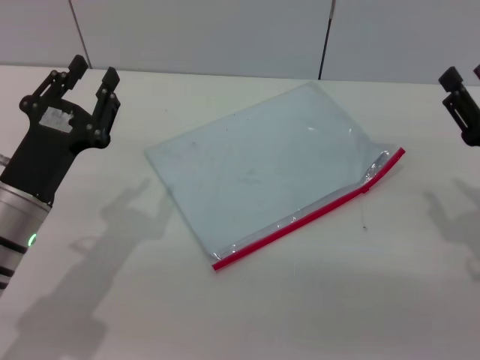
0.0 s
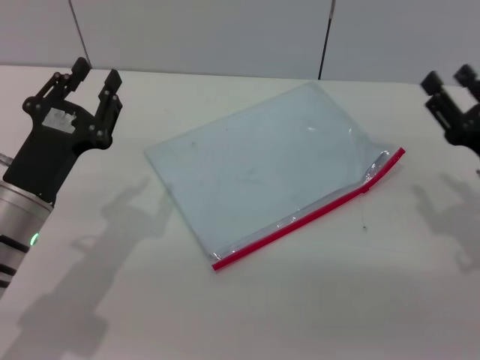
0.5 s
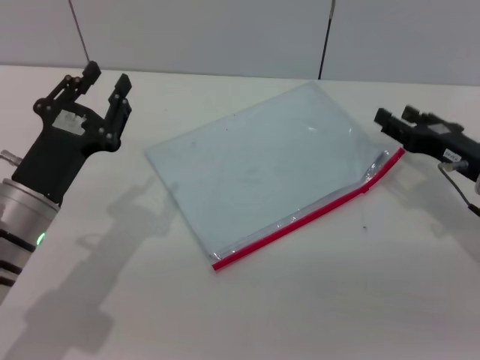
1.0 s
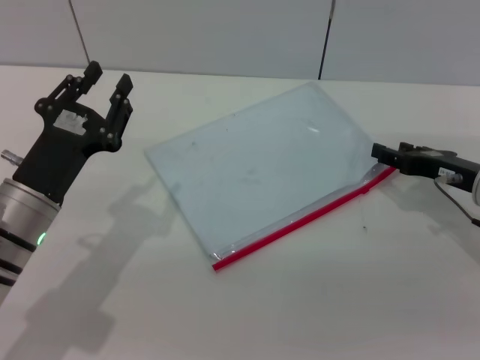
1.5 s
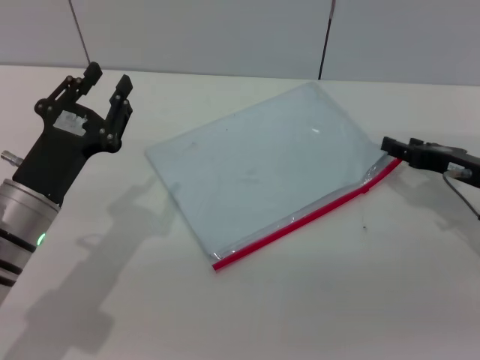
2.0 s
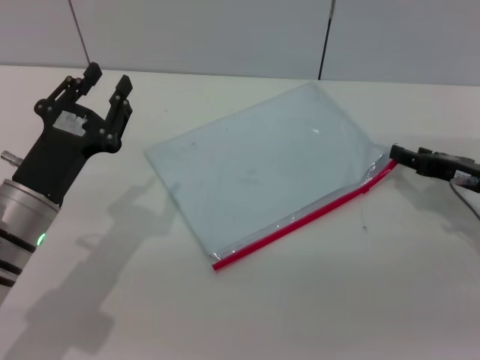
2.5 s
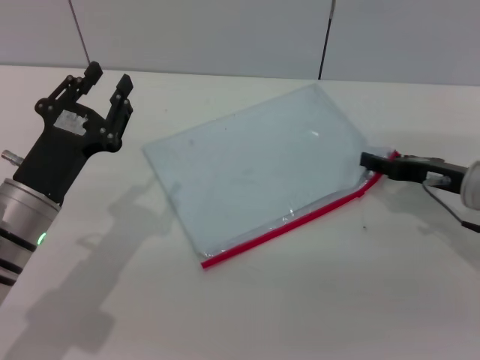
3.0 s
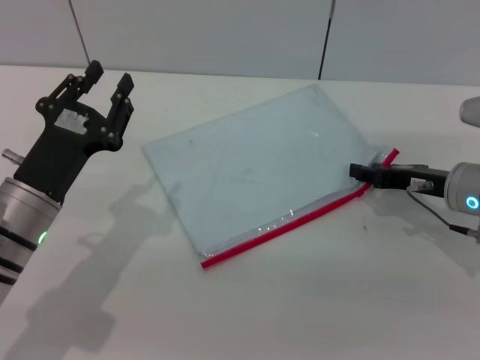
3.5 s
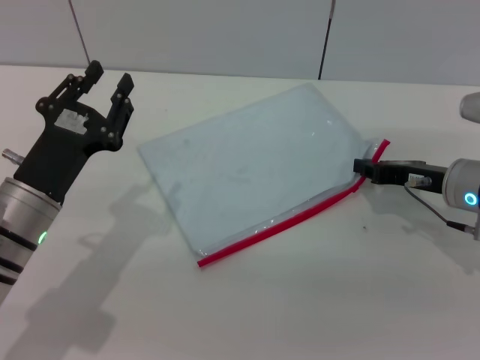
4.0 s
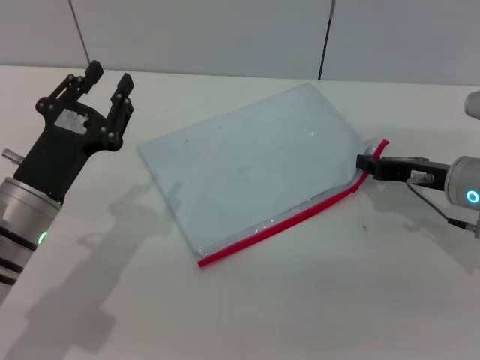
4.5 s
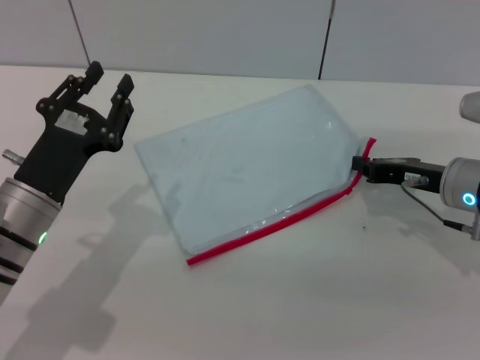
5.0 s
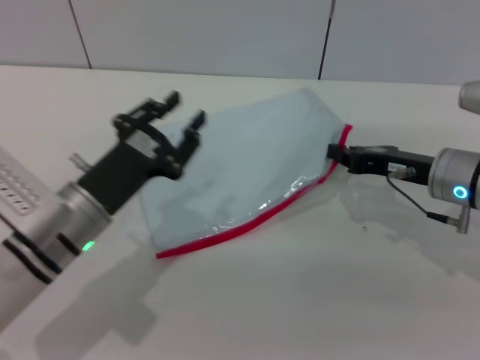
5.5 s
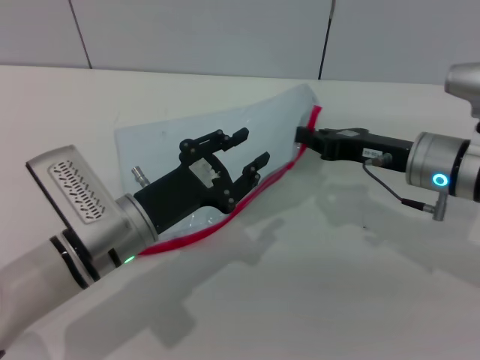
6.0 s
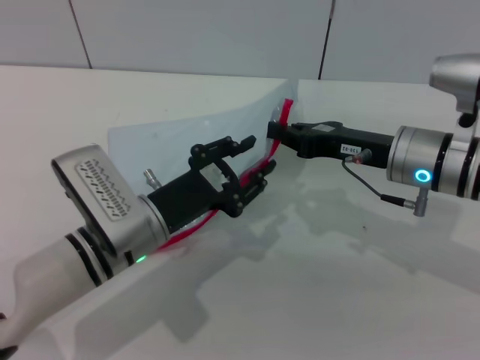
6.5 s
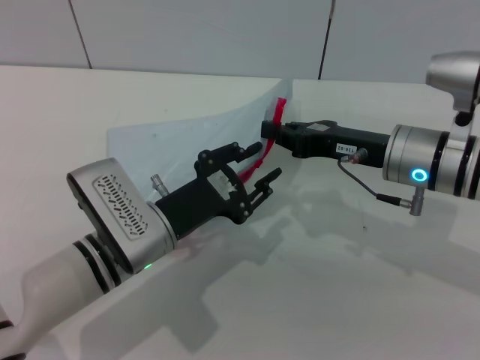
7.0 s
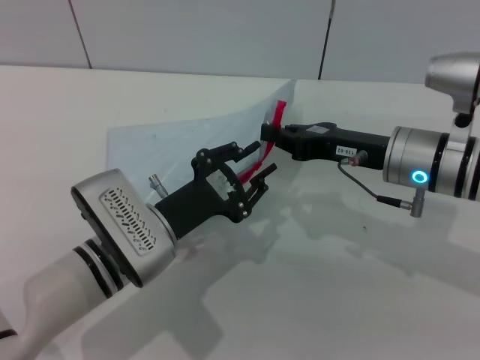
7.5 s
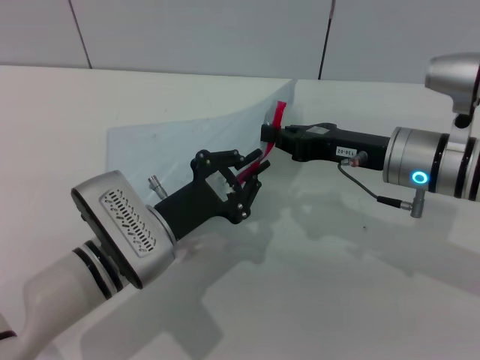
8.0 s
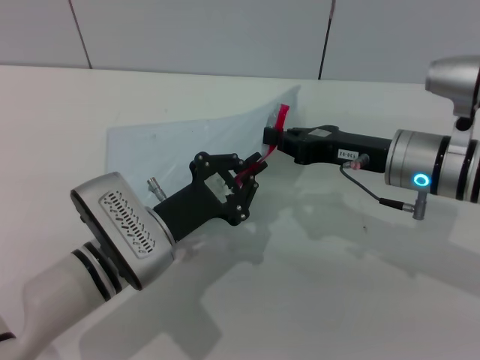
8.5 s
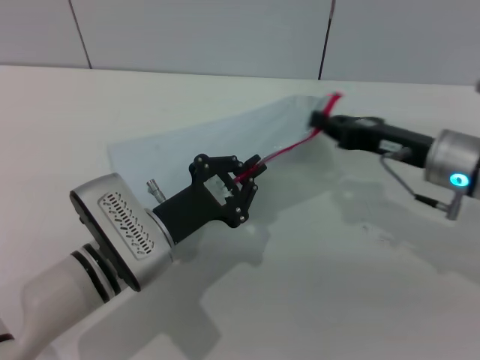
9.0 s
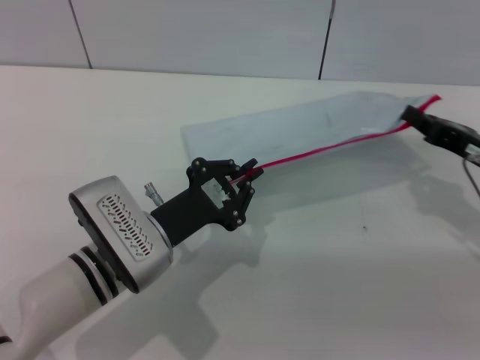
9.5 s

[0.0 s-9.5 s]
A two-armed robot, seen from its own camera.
Step, 0.0 to 5.5 s: Pick up the transparent plastic bag with the right gripper.
0.0 to 2.0 s: The right gripper moves forward, about 10 cm.
2.0 to 4.0 s: The right gripper closes.
5.5 to 7.5 s: The right gripper shifts roughly 5 cm to the left; the left gripper travels to the right by approximately 5 cm.
7.5 to 9.5 s: The left gripper closes. Meanwhile the right gripper shifts some 10 cm to the right.

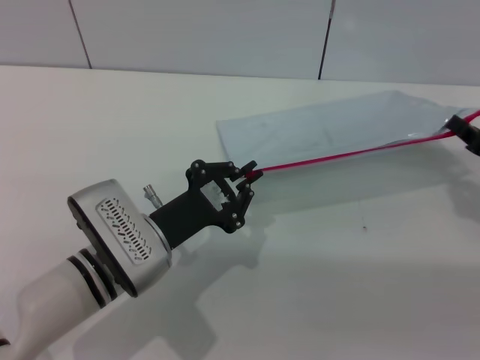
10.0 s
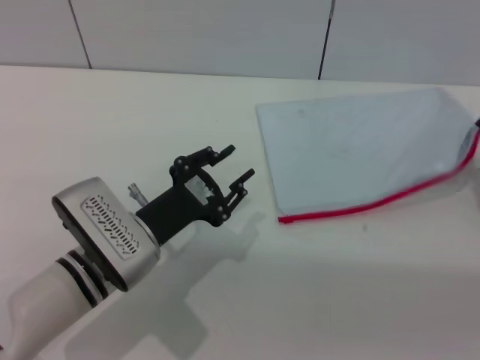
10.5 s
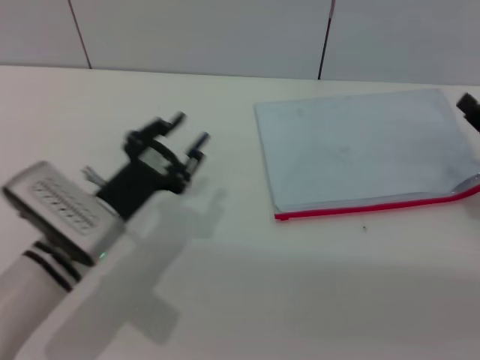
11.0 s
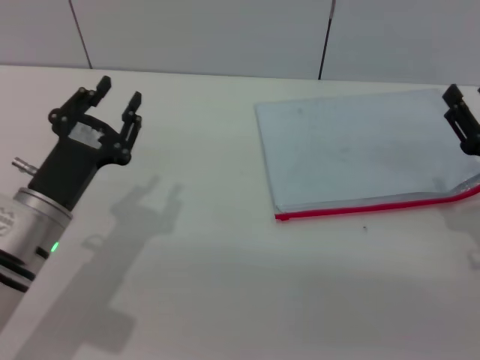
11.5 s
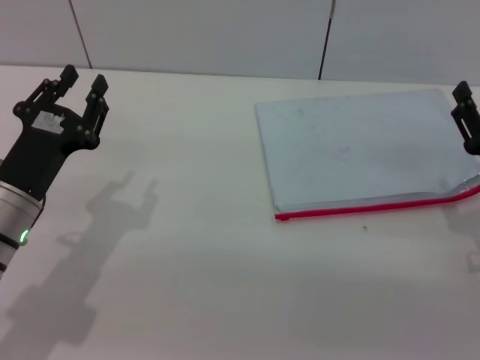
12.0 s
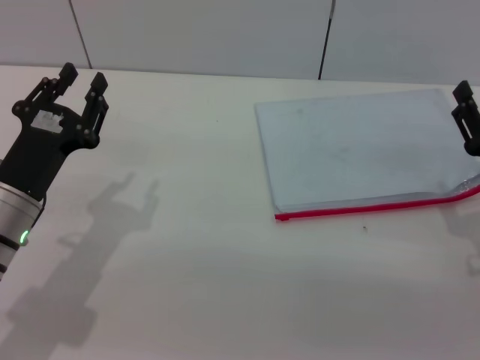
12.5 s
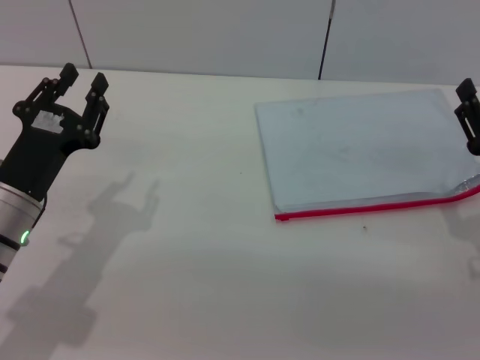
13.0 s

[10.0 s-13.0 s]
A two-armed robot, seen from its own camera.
10.0 to 11.5 s: The right gripper shifts by some 5 cm, and opens its fingers. The left gripper moves to the left, roughly 5 cm, and opens its fingers.
11.5 to 13.0 s: There are only small adjustments of the grippers.

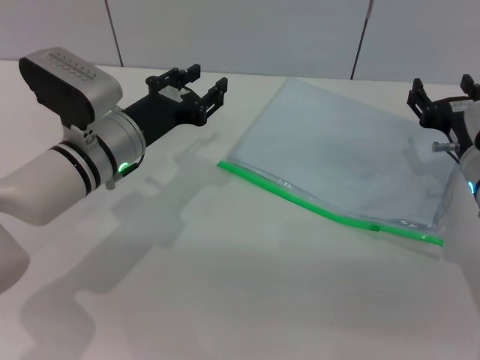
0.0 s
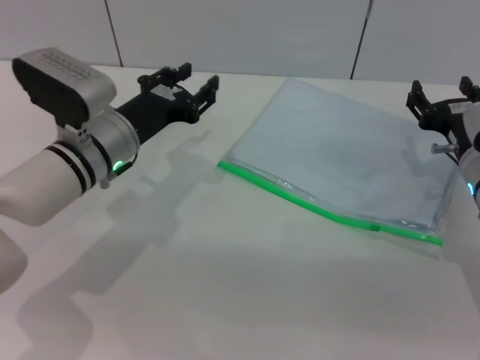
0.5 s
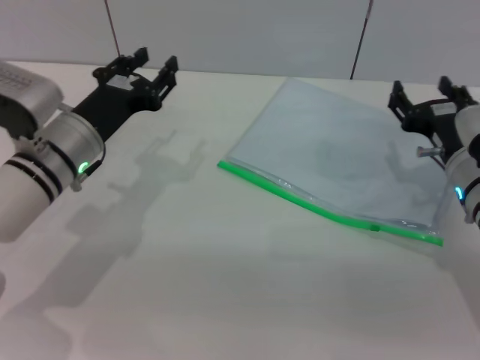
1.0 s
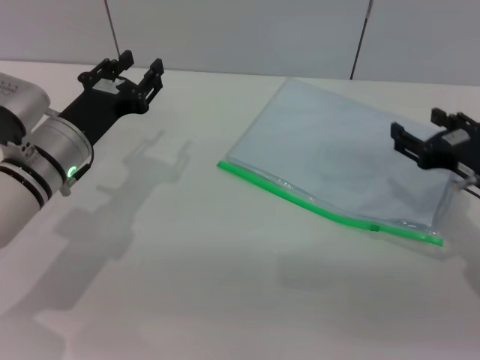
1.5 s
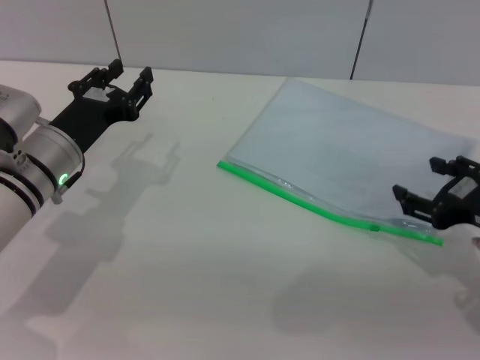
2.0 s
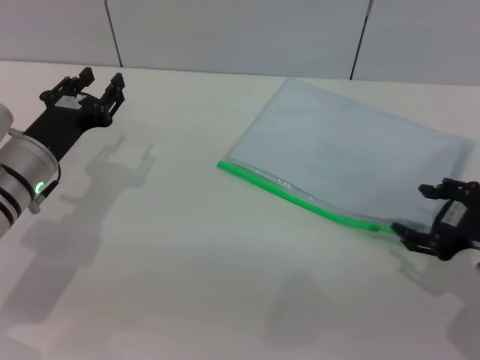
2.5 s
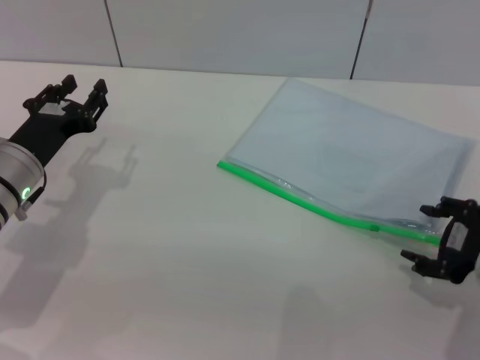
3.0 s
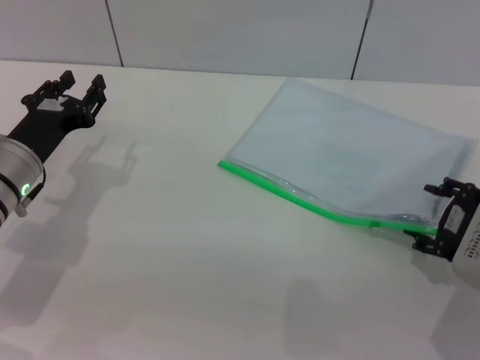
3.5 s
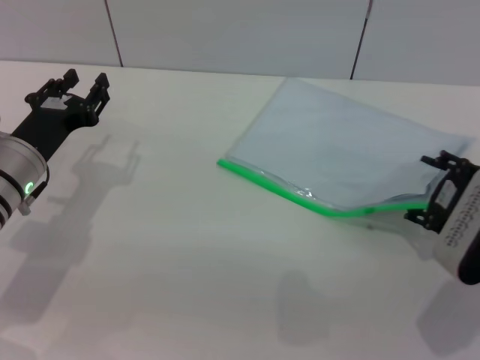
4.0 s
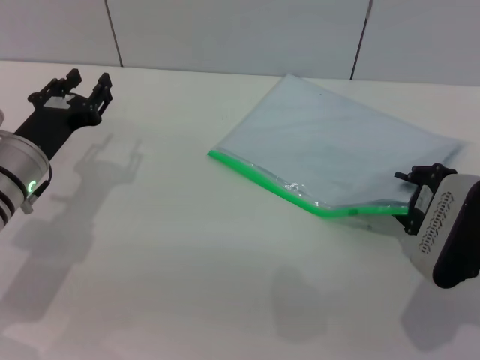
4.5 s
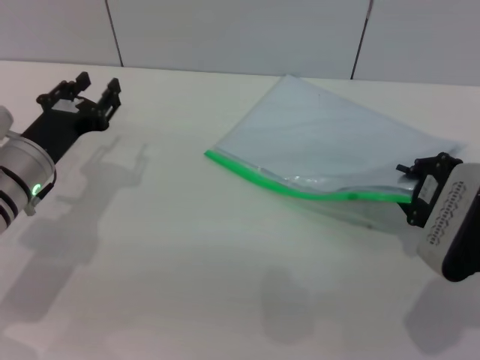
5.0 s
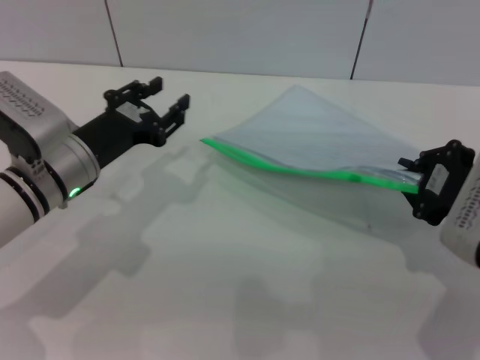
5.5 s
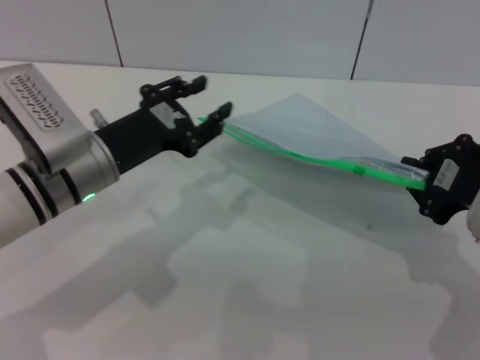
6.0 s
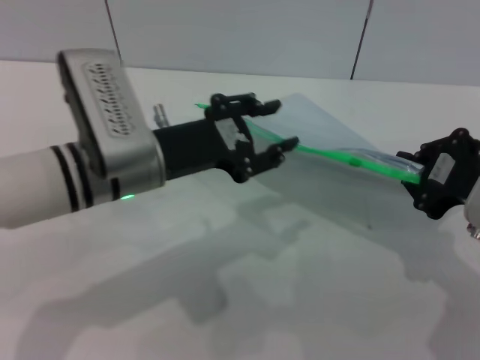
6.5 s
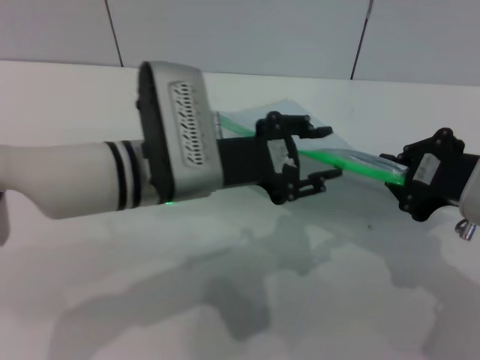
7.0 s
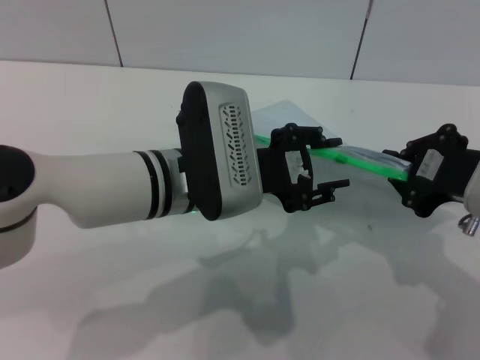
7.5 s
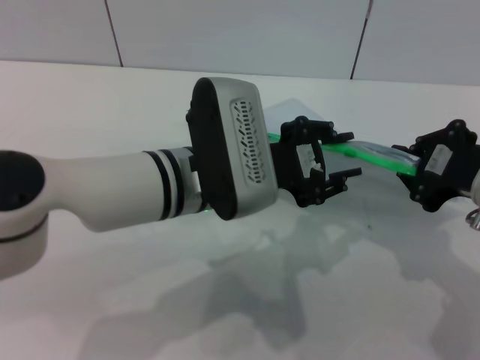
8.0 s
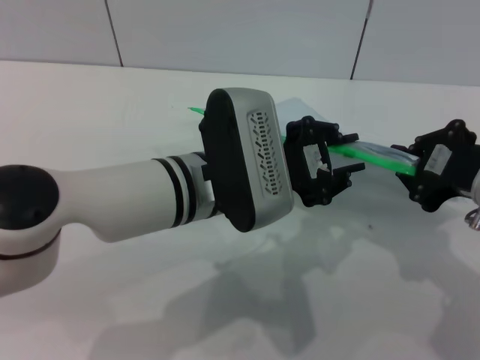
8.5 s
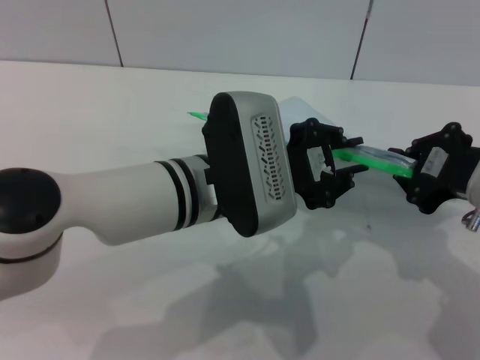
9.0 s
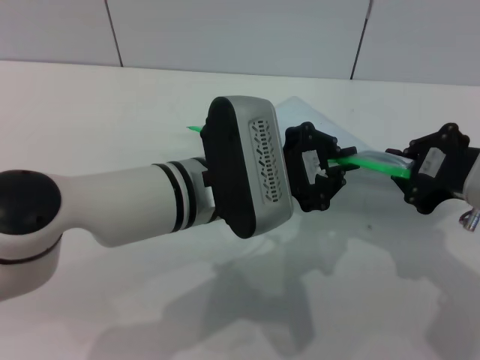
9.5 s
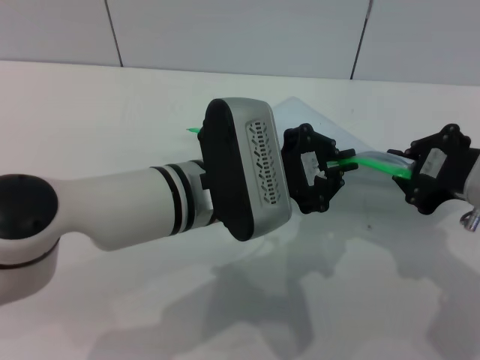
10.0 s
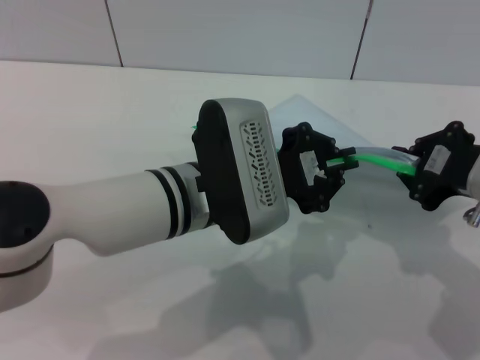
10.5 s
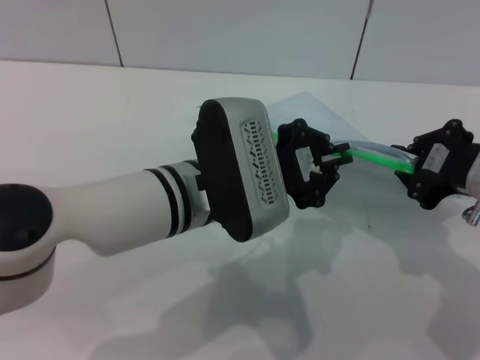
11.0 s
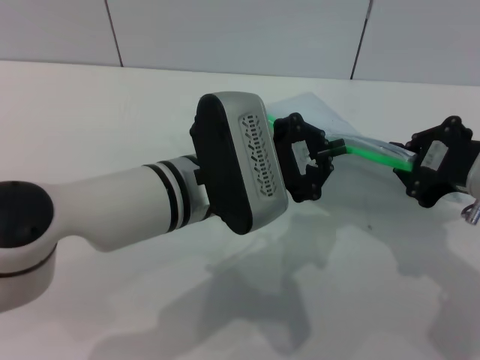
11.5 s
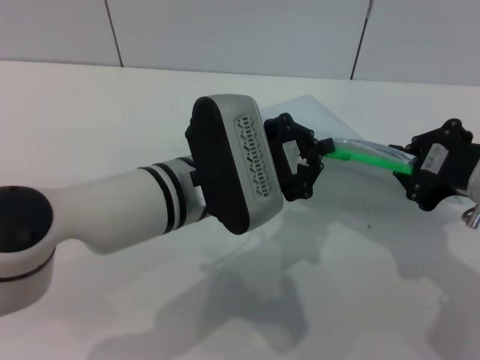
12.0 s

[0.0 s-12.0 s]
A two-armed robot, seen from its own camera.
Step, 0.0 to 5.0 s: Pick up the transparent plastic bag with the right gripper.
0.0 to 2.0 s: The left gripper travels to the left by some 5 cm. The right gripper travels backward and upward by some 10 cm.
4.0 to 6.0 s: The right gripper travels upward by approximately 5 cm, and closes its fingers; the left gripper shifts approximately 5 cm to the right.
6.0 to 8.0 s: The left gripper travels to the right by some 10 cm.
8.0 to 10.0 s: The left gripper closes.
10.0 to 12.0 s: The grippers stay close to where they were, moving slightly.

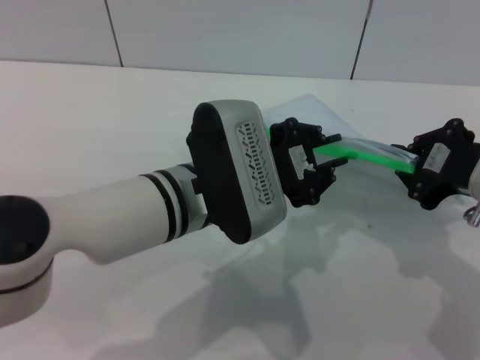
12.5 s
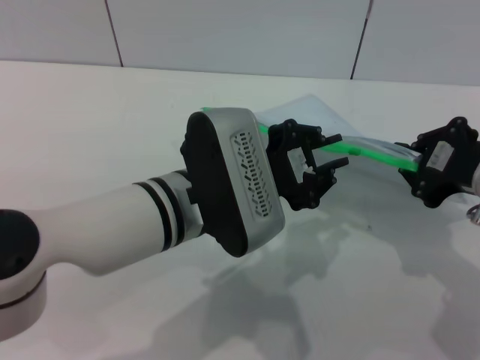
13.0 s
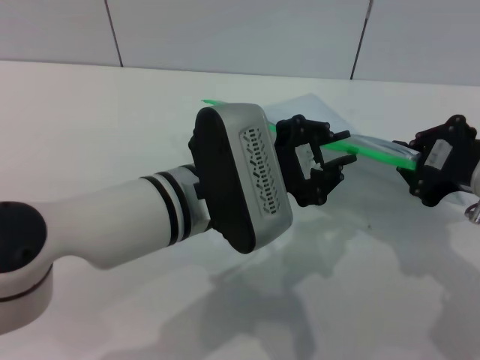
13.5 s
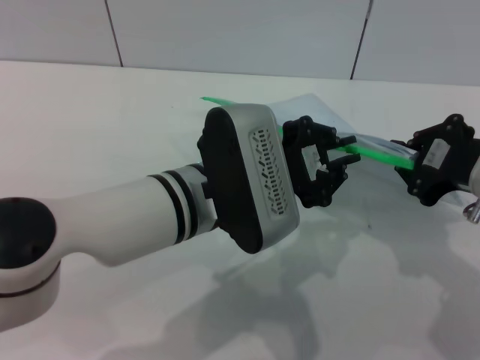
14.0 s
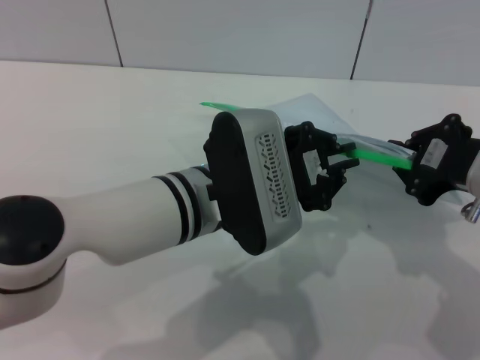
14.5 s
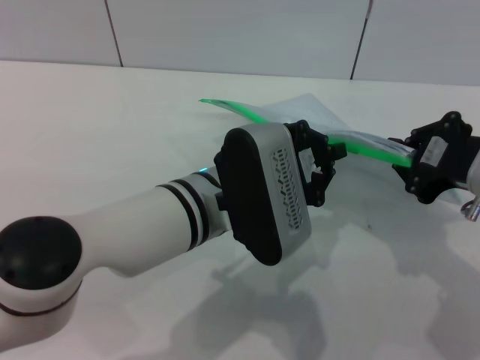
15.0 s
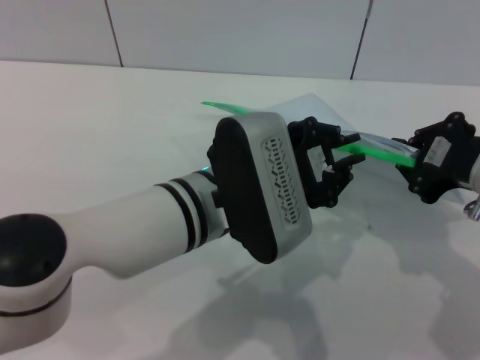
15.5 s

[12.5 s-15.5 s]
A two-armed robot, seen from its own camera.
12.5 to 14.0 s: Neither gripper changes place.
14.0 to 15.5 s: There are only small adjustments of the grippers.
